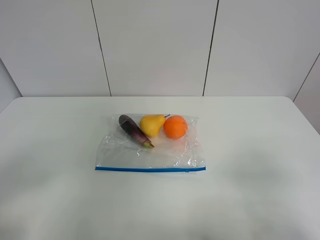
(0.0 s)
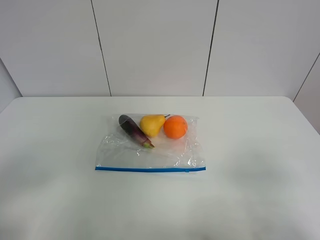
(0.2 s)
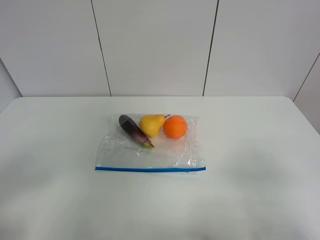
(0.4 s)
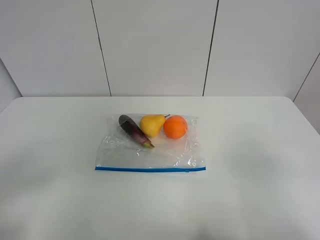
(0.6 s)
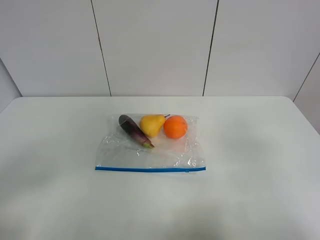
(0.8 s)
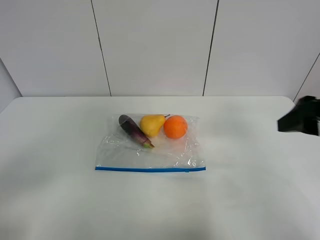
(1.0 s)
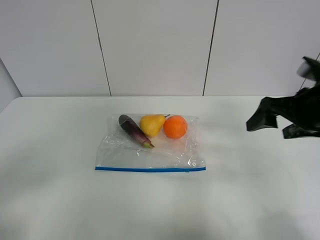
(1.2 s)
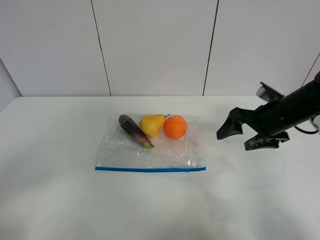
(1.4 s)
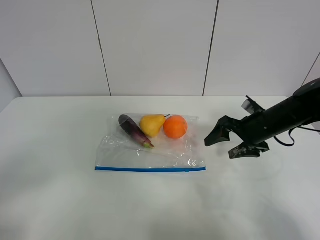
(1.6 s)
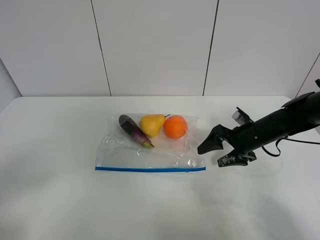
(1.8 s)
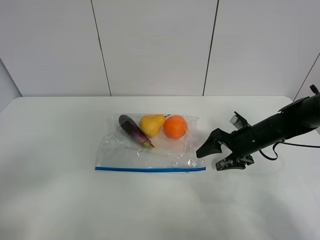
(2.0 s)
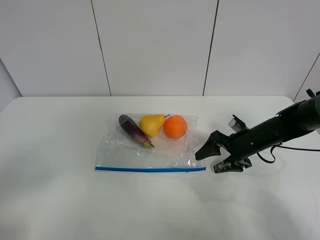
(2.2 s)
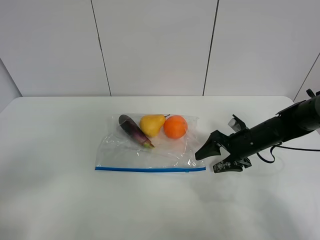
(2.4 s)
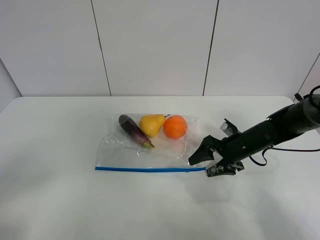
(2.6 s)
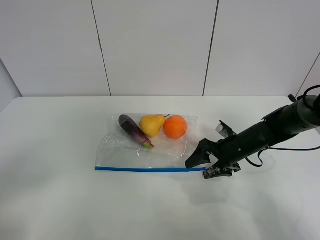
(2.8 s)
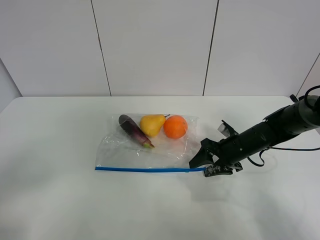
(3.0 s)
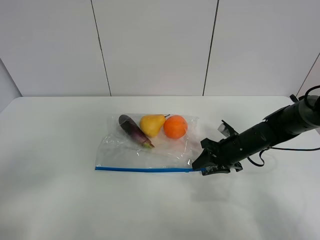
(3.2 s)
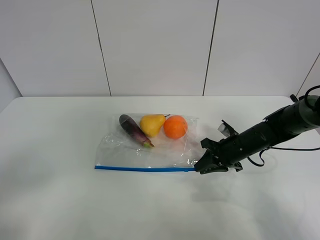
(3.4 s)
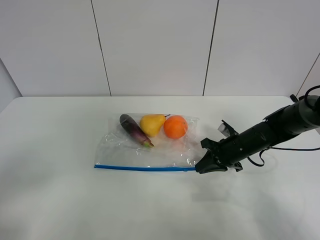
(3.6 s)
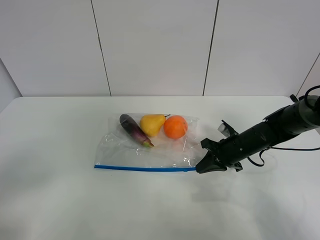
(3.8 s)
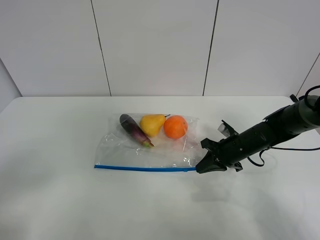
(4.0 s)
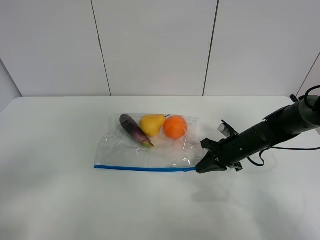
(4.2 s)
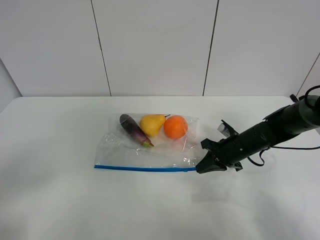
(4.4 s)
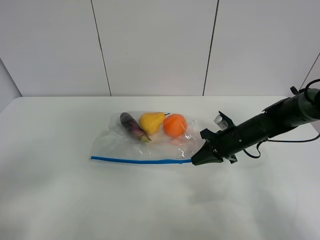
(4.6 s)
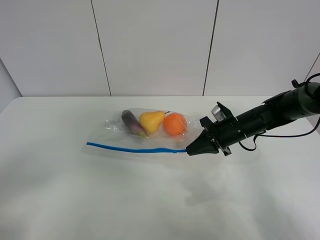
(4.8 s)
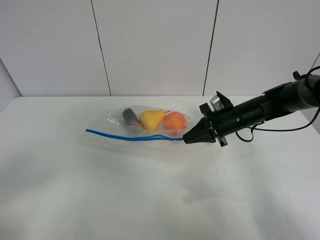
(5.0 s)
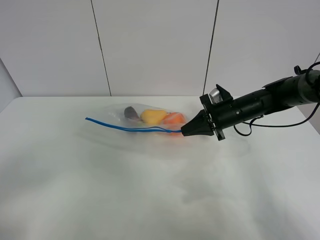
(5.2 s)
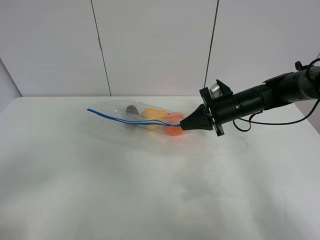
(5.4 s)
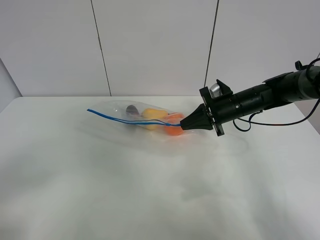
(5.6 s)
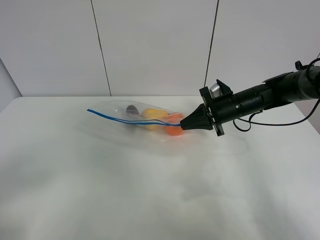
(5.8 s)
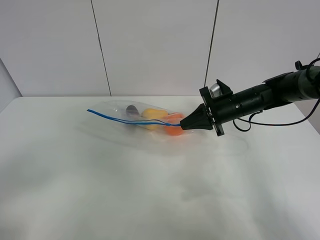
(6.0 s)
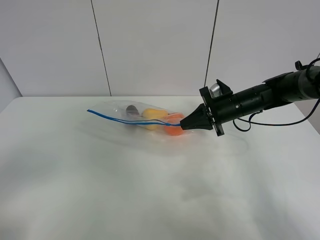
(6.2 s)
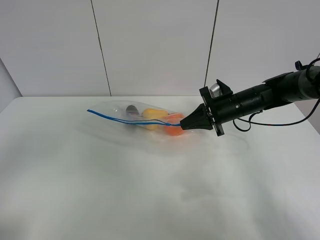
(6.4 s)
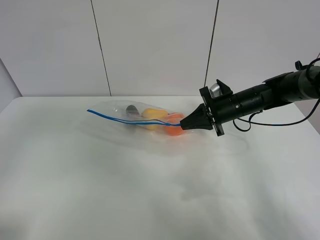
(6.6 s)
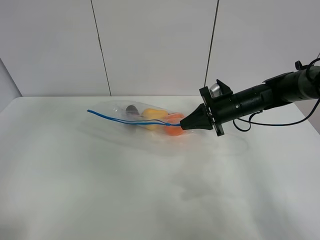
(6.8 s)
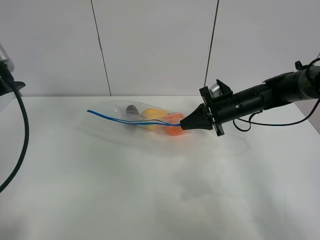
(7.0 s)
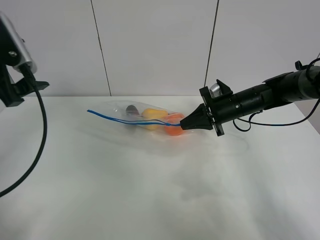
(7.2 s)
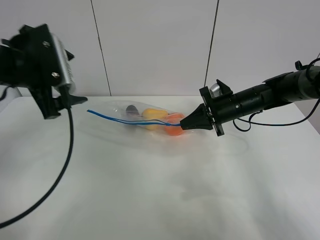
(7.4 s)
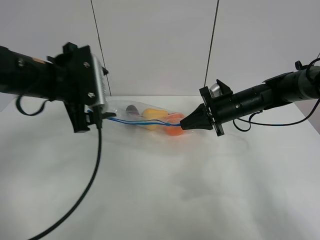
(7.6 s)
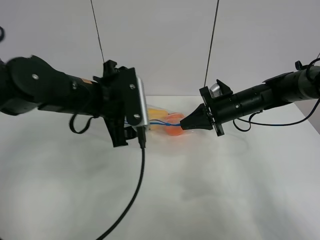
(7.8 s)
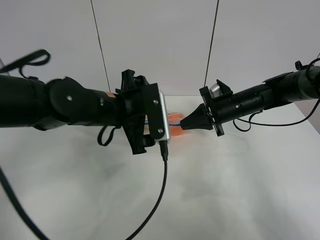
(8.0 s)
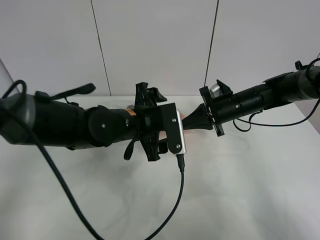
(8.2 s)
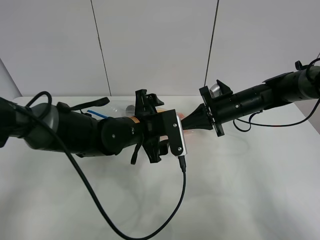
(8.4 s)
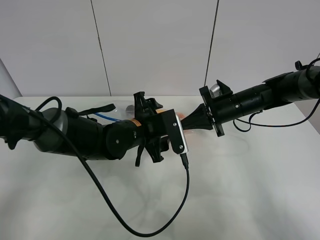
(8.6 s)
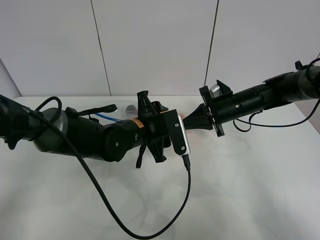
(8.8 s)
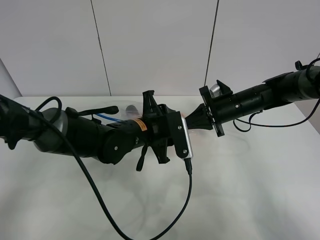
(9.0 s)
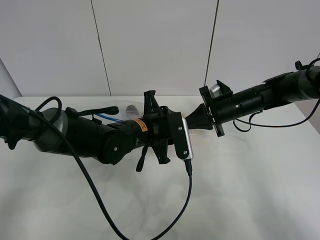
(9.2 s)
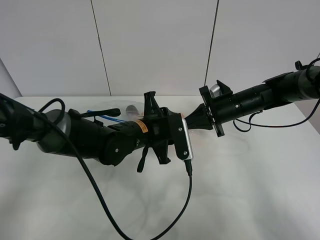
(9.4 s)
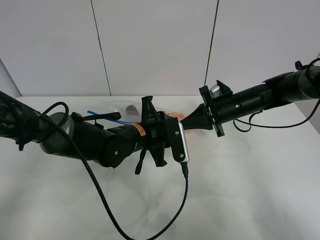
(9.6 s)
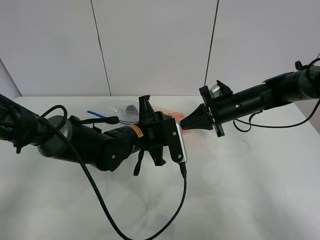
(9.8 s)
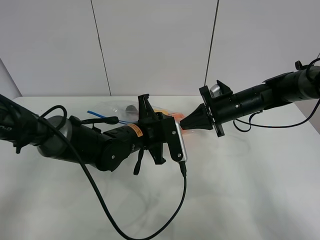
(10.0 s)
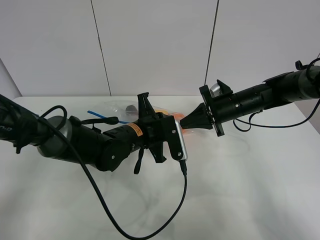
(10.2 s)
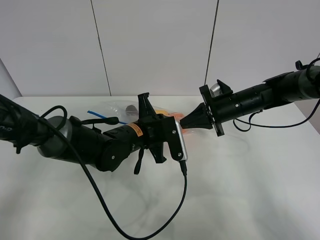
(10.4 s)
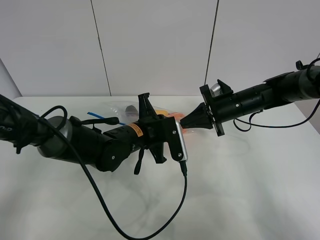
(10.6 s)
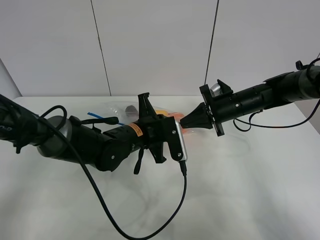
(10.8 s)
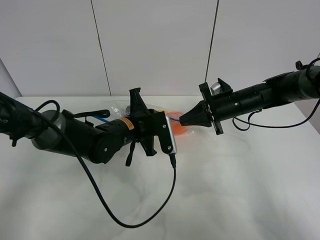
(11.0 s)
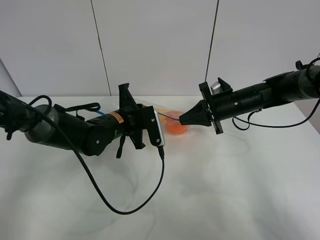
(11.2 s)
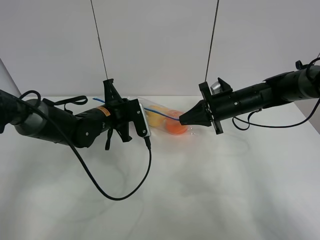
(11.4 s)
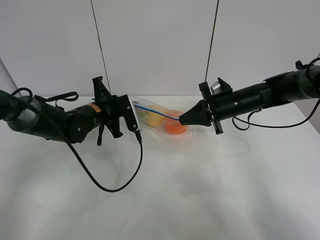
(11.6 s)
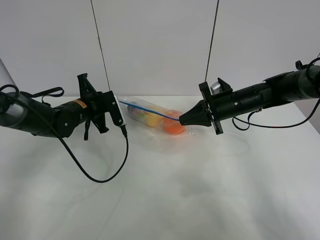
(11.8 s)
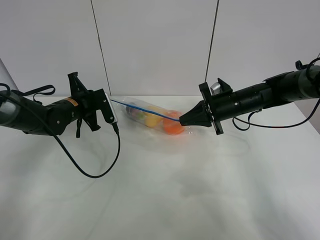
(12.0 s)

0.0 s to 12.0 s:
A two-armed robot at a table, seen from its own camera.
Step, 0.0 to 3.8 s: Grasp the fruit bag with right gripper.
Step, 4.0 to 5.4 s: Lift the fruit bag with your right gripper.
0.0 to 1.6 s: The right gripper goes roughly 30 cm forward.
1.6 to 3.0 s: The right gripper travels downward by some 5 cm.
3.0 to 4.4 s: The right gripper closes.
4.4 to 6.0 s: The right gripper is displaced upward and forward by about 10 cm.
6.0 to 7.6 s: The left gripper travels forward and to the right by some 30 cm.
7.6 to 9.0 s: The left gripper travels to the right and downward by about 20 cm, and closes up.
9.0 to 10.4 s: The left gripper closes its fingers.
10.4 to 12.0 s: The left gripper heads to the left and forward, covering about 20 cm.

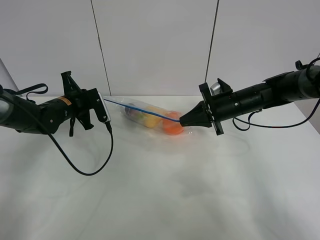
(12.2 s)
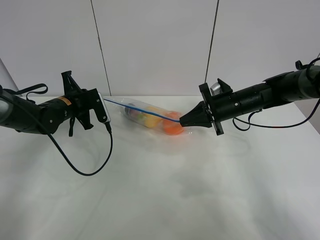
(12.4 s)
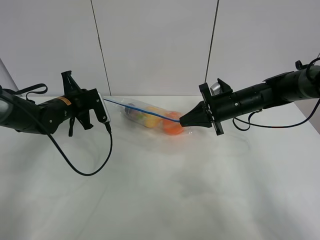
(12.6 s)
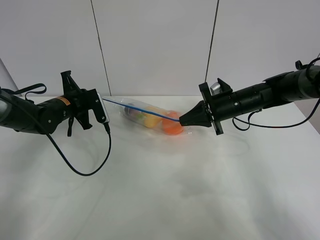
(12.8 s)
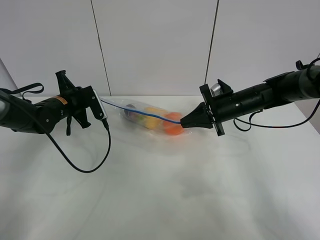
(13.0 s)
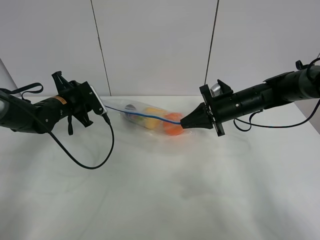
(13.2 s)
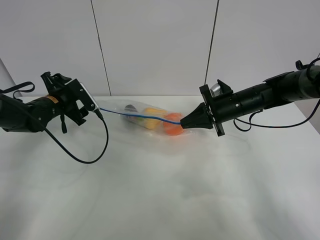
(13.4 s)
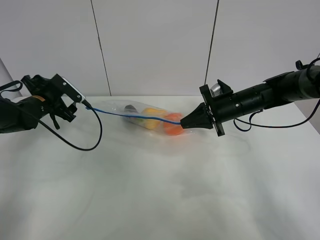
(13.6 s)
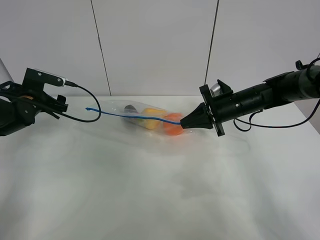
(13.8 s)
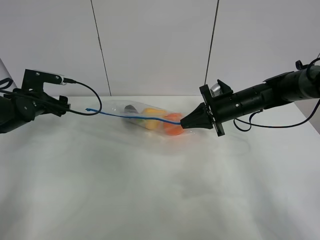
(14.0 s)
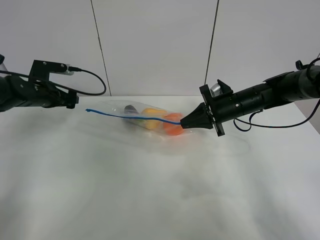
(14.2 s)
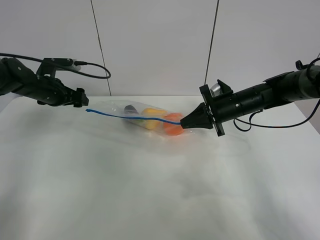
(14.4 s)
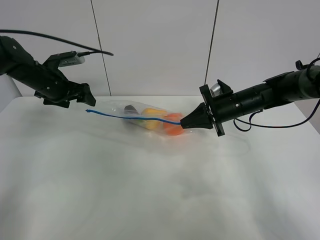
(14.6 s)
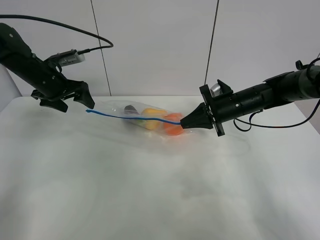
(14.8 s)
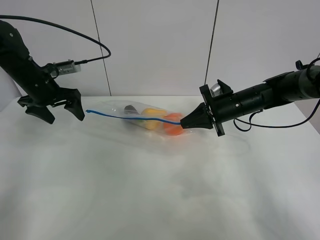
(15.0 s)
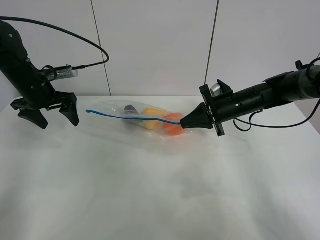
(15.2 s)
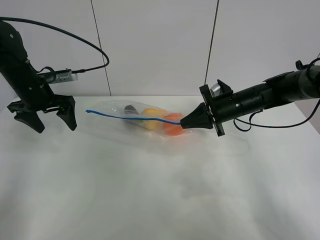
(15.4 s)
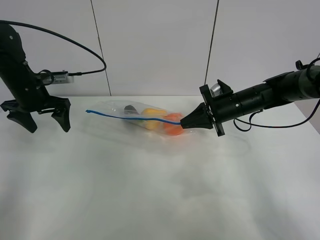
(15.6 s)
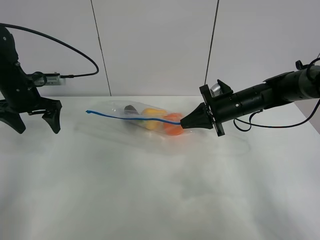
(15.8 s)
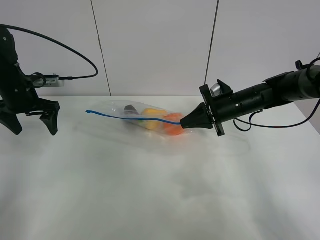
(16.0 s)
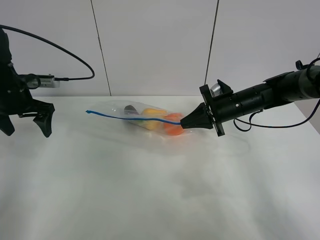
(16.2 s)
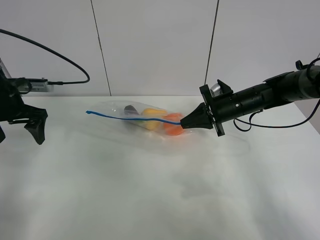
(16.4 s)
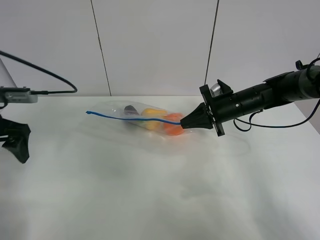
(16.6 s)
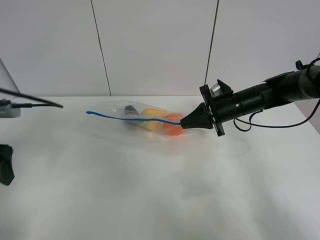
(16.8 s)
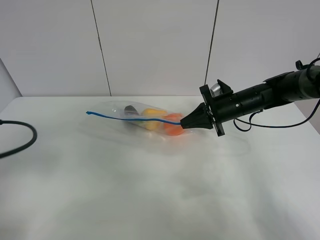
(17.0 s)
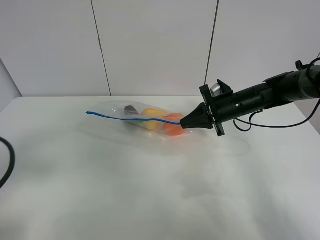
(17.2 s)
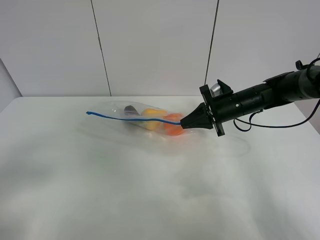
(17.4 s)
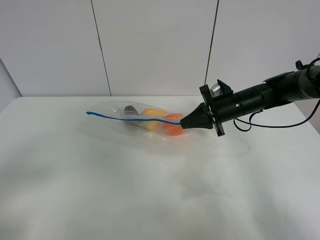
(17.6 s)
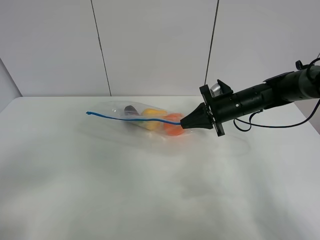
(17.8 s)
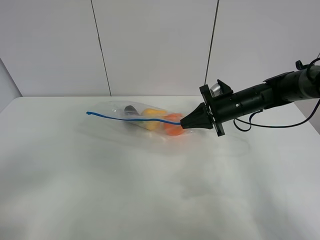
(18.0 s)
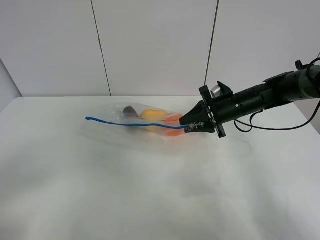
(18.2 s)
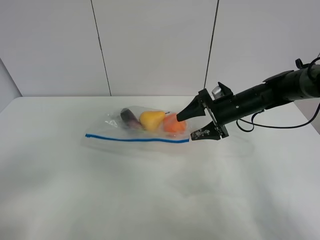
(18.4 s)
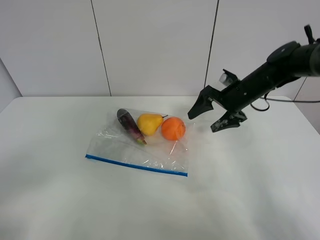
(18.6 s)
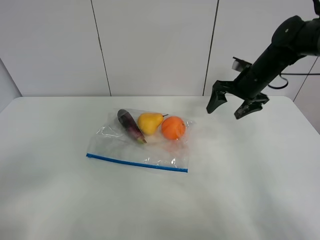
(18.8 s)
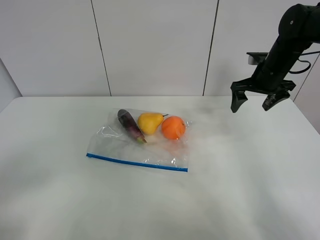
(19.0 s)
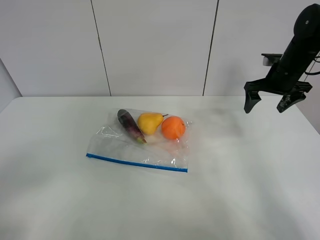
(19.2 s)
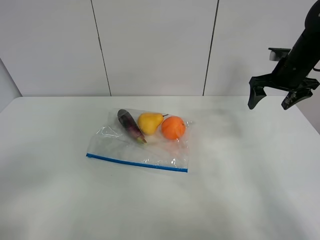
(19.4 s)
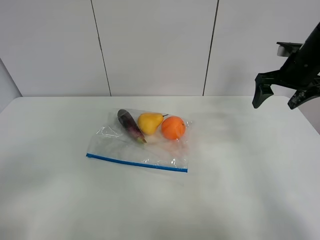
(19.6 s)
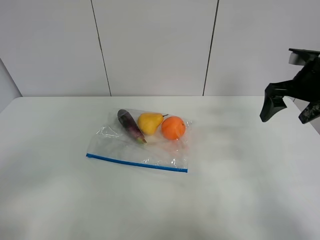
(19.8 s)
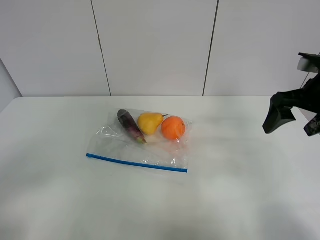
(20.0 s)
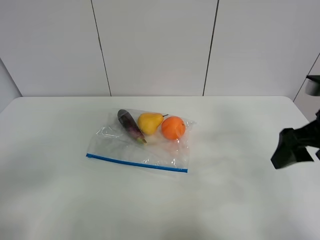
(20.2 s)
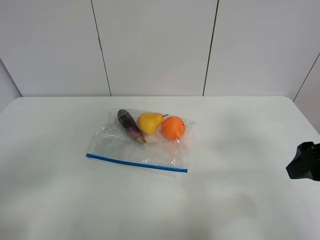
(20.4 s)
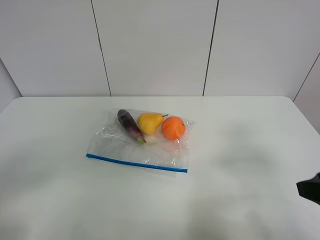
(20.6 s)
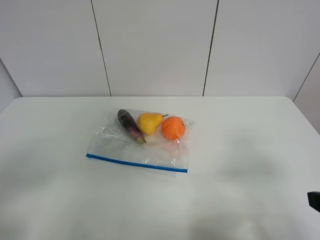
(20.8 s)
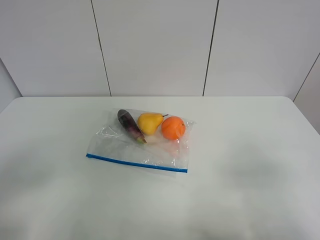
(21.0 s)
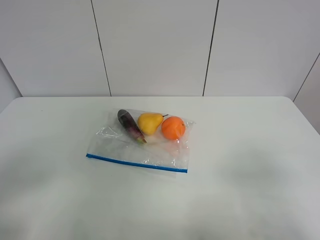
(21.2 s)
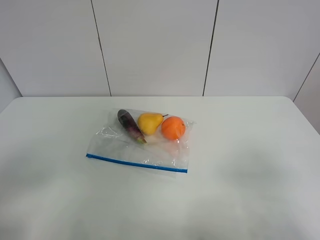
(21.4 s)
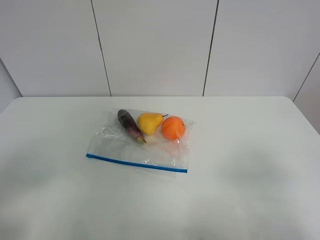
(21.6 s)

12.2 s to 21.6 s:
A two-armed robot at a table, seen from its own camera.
12.2 to 13.8 s: The left gripper heads to the left, covering roughly 10 cm, and opens its fingers.
13.8 to 15.4 s: The left gripper travels upward by roughly 5 cm.
15.4 to 17.0 s: The left gripper travels backward by approximately 25 cm.
17.0 to 18.4 s: The right gripper opens up, while the left gripper heads backward, covering some 10 cm.
18.4 to 20.0 s: The right gripper is displaced upward, backward and to the right by some 20 cm.
20.0 to 21.6 s: The right gripper heads backward, covering approximately 25 cm.

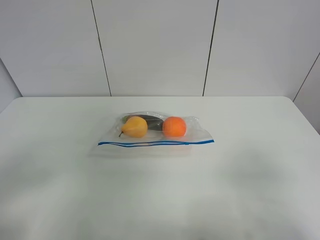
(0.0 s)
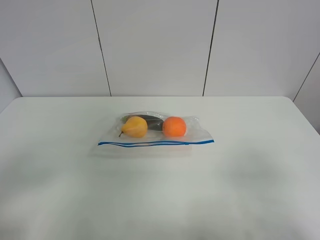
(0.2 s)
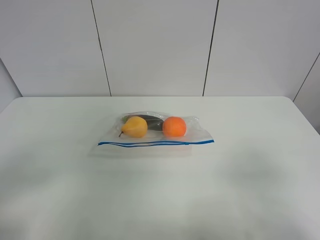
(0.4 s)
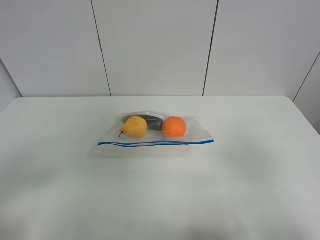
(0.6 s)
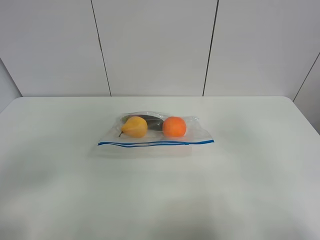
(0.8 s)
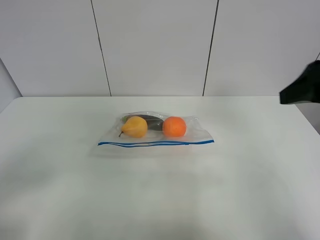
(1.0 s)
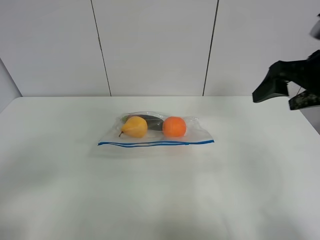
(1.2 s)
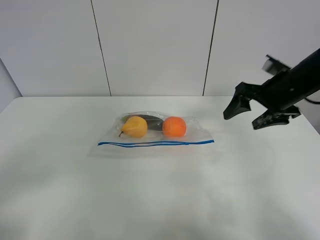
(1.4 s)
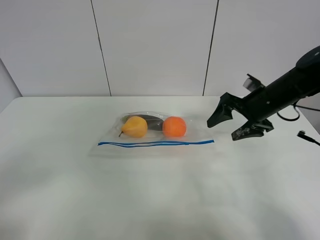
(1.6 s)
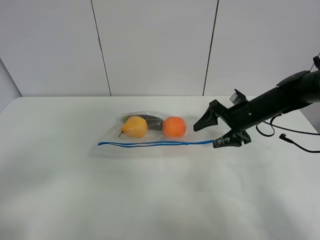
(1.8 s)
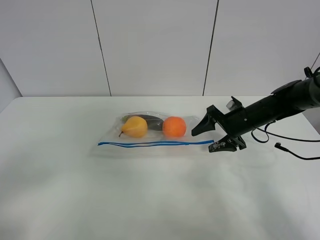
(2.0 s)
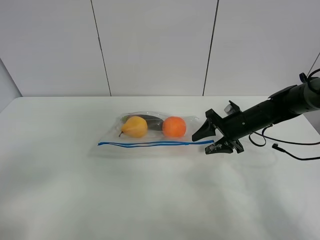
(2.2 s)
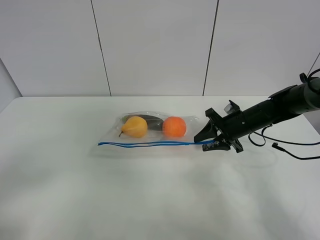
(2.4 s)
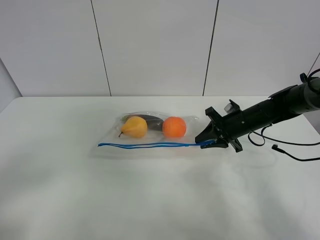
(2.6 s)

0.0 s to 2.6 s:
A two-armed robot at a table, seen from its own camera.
0.0 to 1.2 s: The right gripper goes roughly 25 cm forward.
1.2 to 2.6 s: The right gripper heads downward and forward, covering some 25 cm, and closes.
